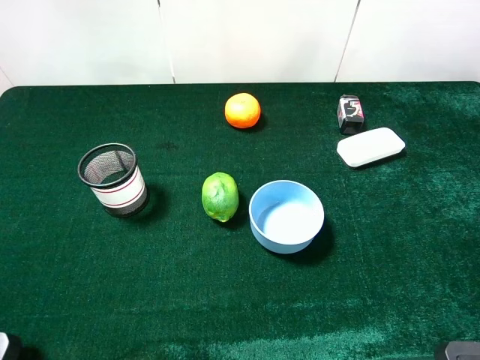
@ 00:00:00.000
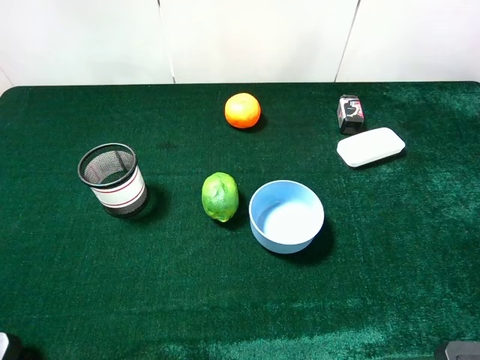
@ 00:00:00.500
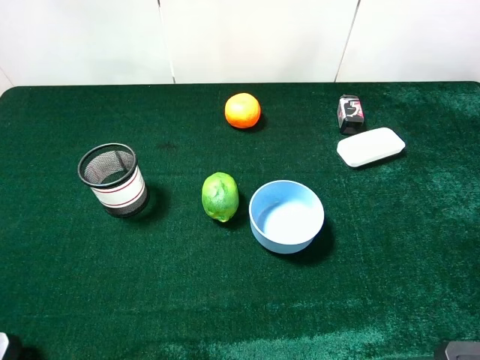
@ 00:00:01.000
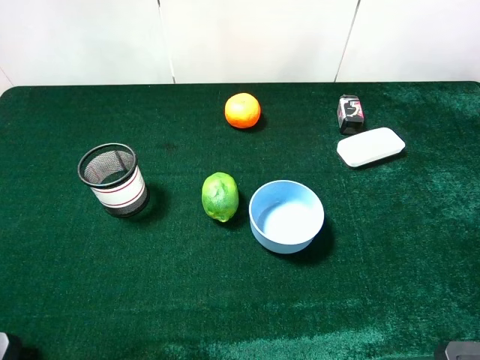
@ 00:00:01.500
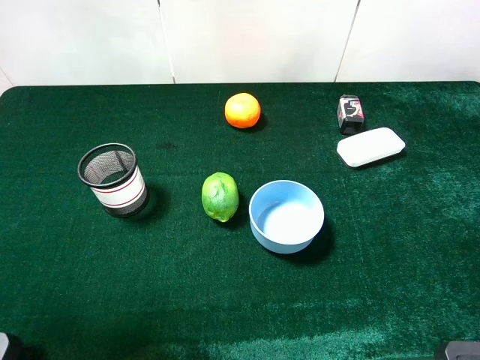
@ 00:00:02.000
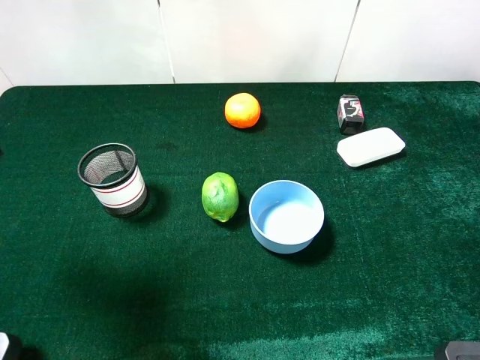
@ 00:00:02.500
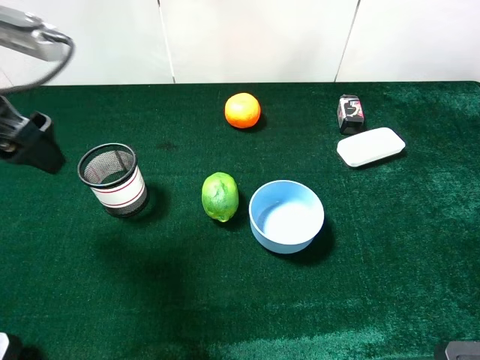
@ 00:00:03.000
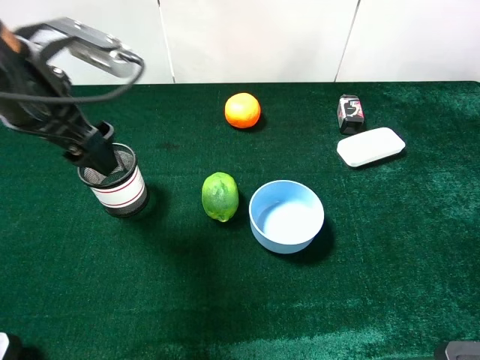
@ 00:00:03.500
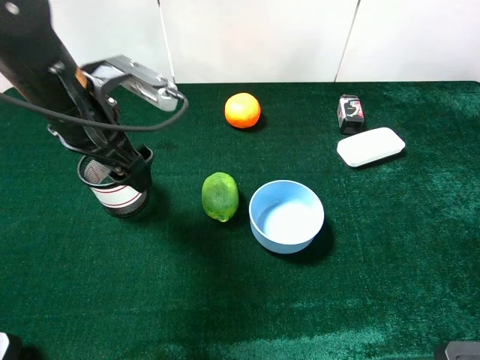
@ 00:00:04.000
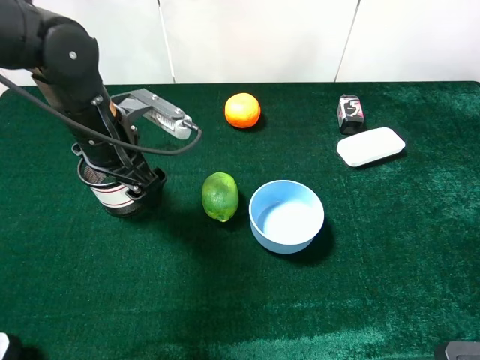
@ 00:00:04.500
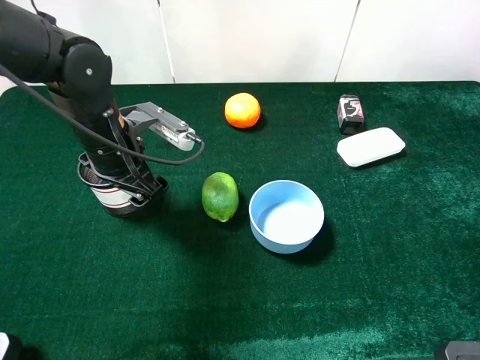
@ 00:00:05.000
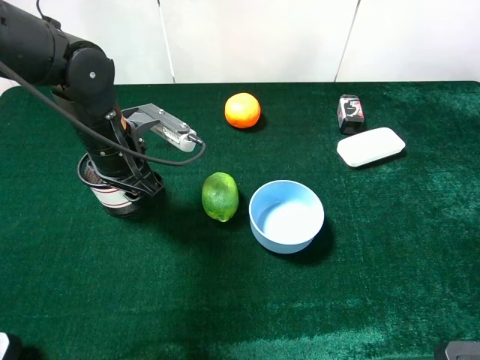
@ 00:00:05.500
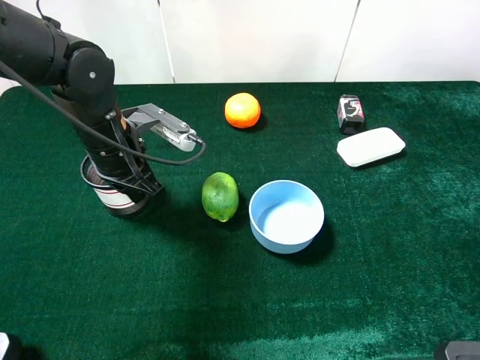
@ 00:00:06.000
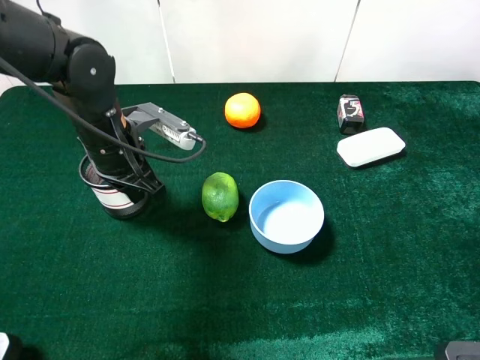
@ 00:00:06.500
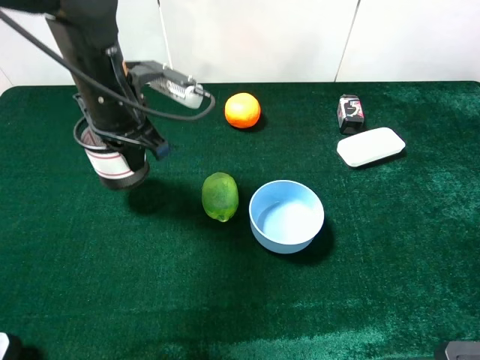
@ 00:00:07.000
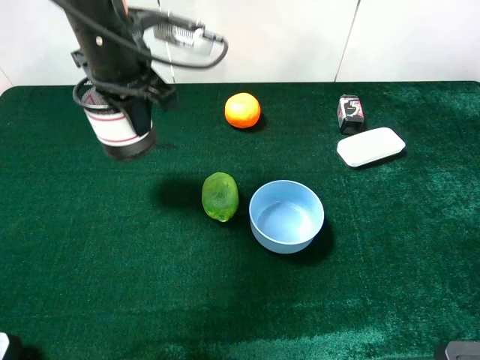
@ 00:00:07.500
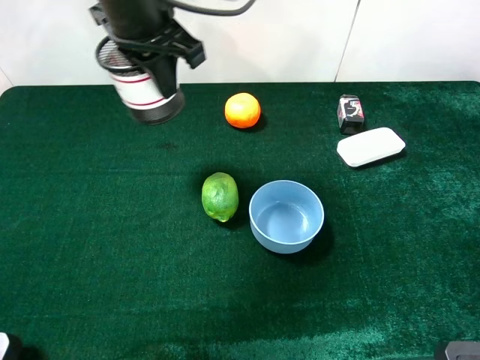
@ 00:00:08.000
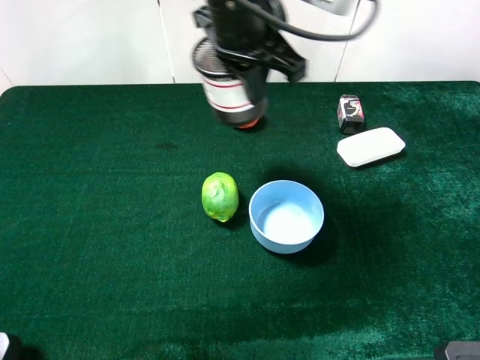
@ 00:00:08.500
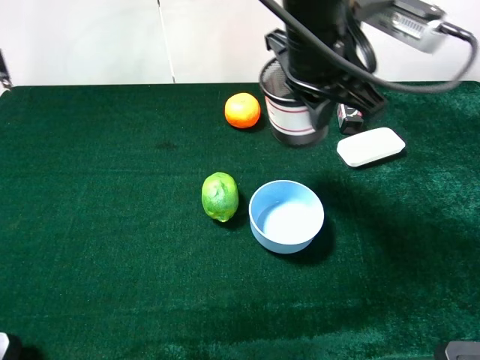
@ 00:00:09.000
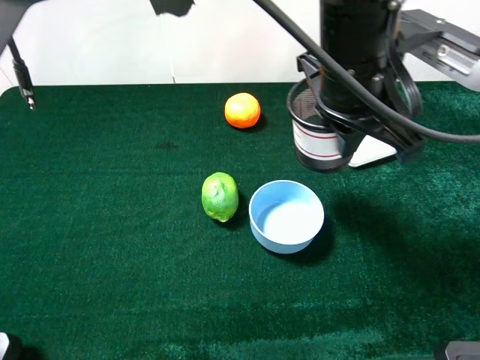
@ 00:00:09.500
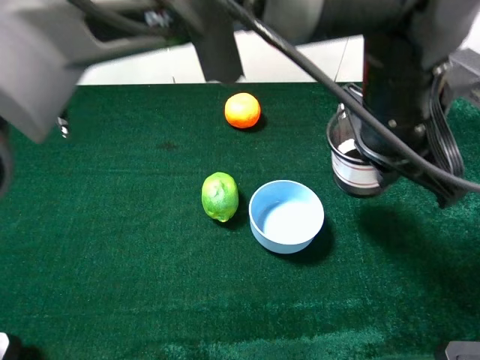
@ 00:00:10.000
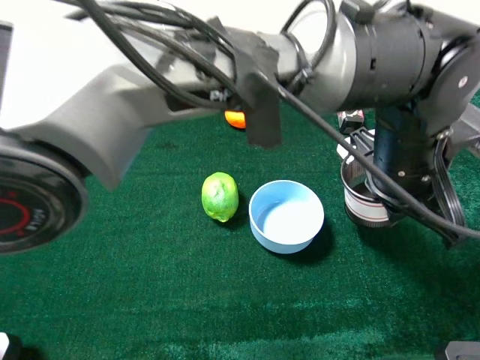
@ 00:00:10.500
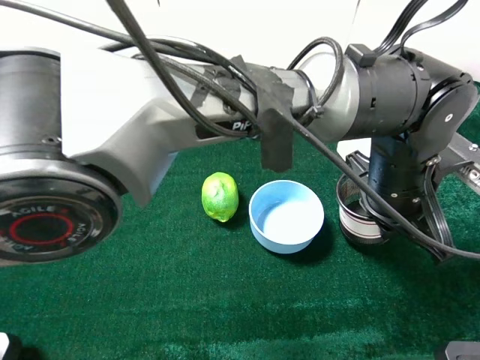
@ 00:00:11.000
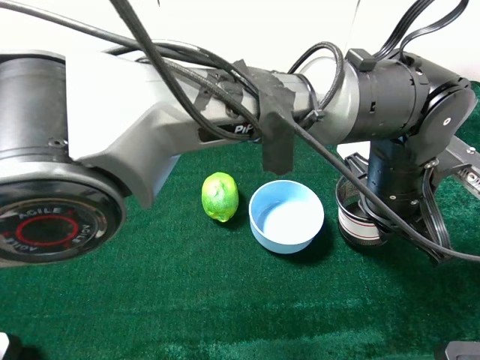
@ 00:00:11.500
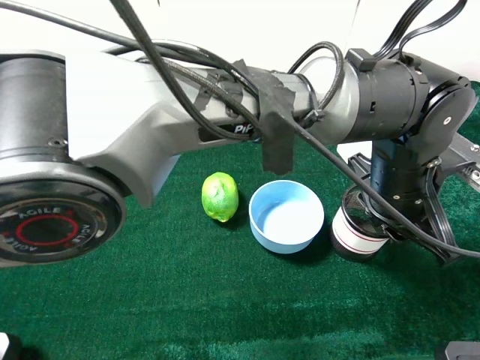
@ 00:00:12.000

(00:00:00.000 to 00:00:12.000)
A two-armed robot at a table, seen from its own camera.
Task of the whole recording: the gripper move the object.
Step, 00:00:00.000 - 00:00:06.000: Grasp the pen container with the left gripper.
00:00:00.000 - 00:00:02.000: The left gripper goes about 15 cm forward and upward.
00:00:02.000 - 00:00:04.000: The left gripper heads forward, to the right and downward, covering approximately 25 cm.
00:00:04.000 - 00:00:06.000: The left gripper travels downward by some 5 cm, and closes.
00:00:06.000 - 00:00:08.000: The left gripper shifts approximately 20 cm upward and to the right.
00:00:08.000 - 00:00:10.000: The left gripper shifts roughly 25 cm to the right and backward.
00:00:10.000 - 00:00:12.000: The left gripper is displaced downward by some 10 cm, and opens its fingers.

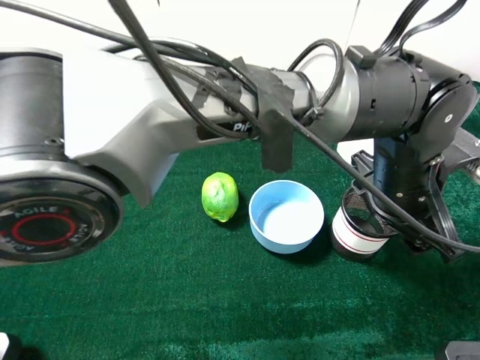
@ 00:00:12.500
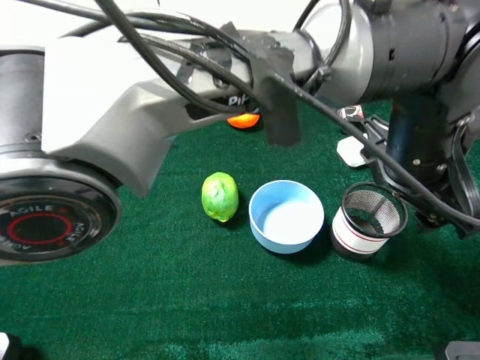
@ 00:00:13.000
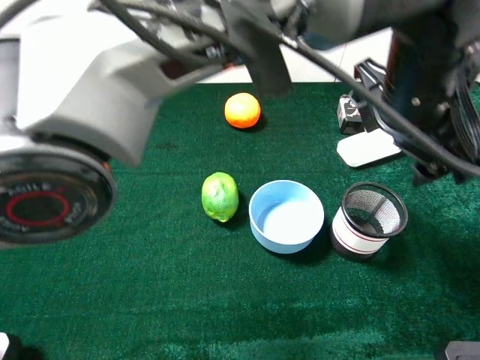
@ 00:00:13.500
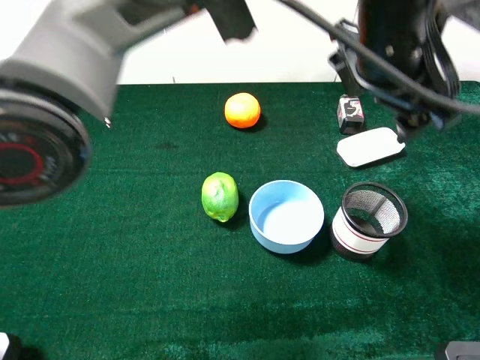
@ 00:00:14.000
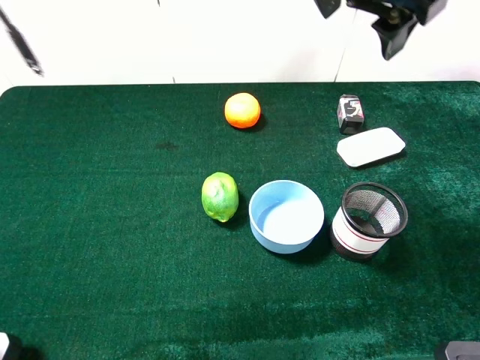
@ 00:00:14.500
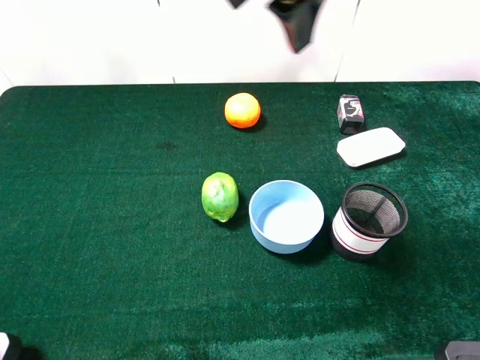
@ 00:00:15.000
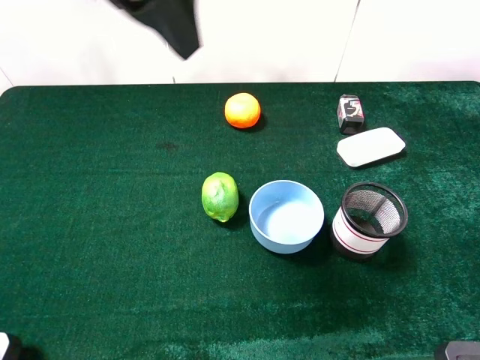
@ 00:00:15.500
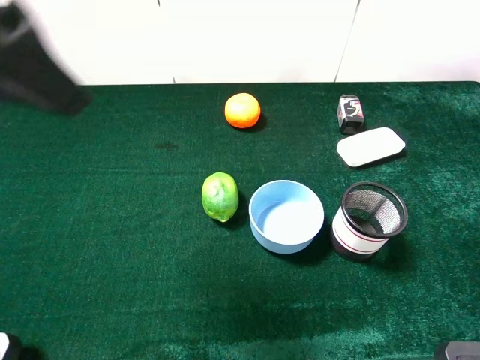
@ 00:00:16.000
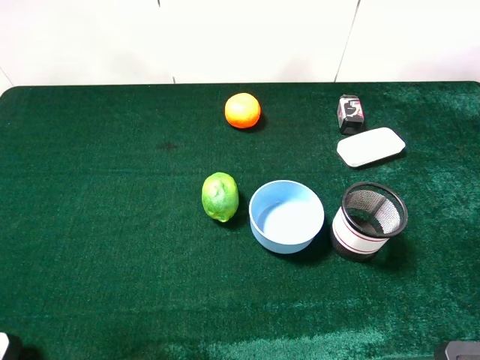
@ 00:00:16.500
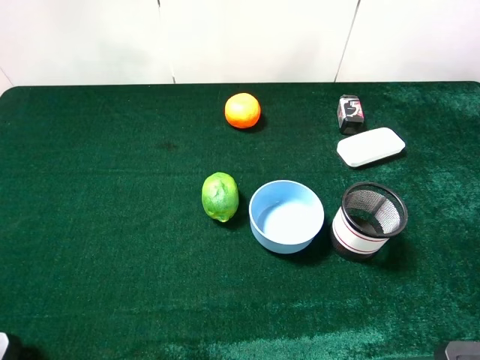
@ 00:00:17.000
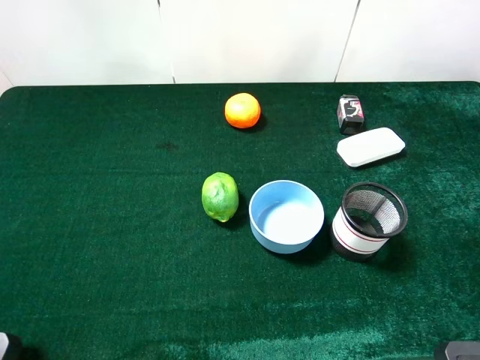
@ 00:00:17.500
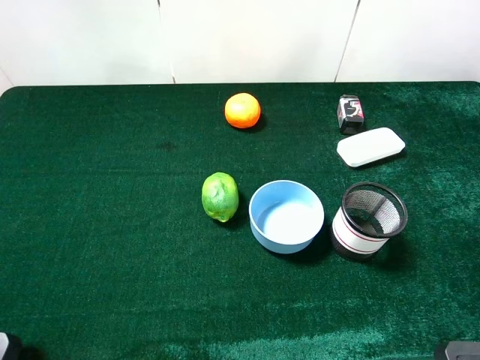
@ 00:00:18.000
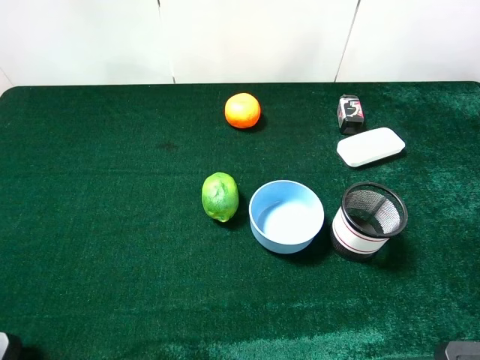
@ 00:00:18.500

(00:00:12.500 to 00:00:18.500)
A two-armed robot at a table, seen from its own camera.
Task of the whole recording: the gripper move the object.
00:00:12.500 - 00:00:14.500: The left gripper moves upward, to the left and forward, approximately 25 cm.
00:00:14.500 - 00:00:16.500: The left gripper shifts about 40 cm to the left and backward.
